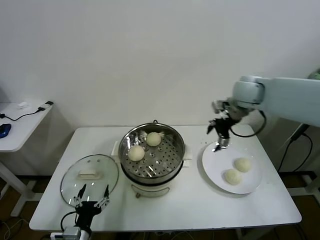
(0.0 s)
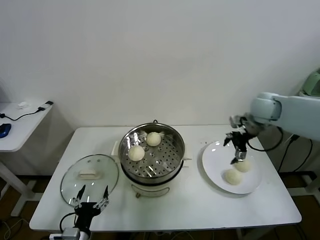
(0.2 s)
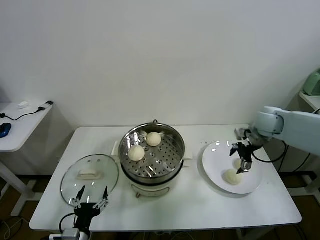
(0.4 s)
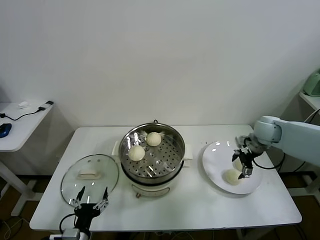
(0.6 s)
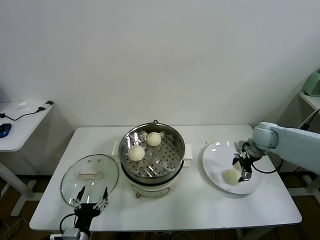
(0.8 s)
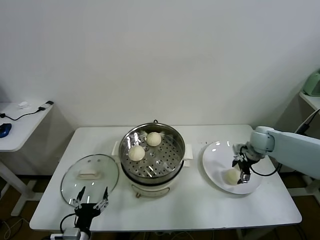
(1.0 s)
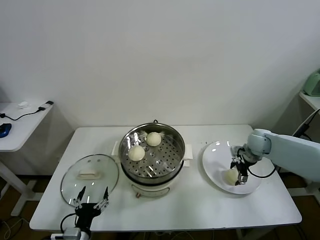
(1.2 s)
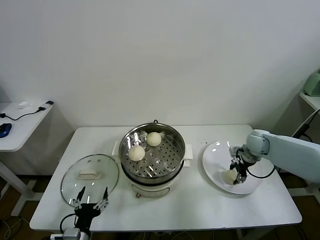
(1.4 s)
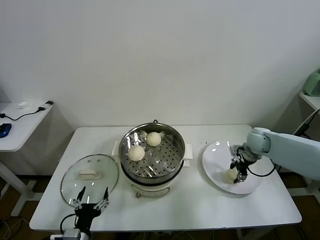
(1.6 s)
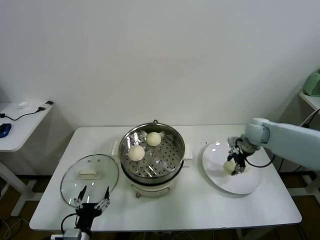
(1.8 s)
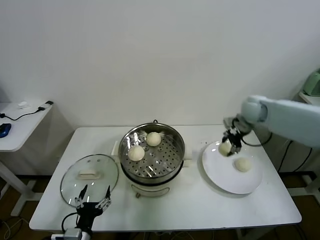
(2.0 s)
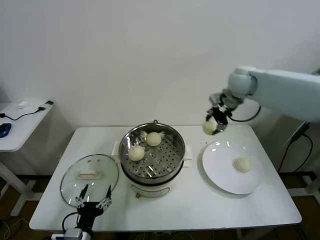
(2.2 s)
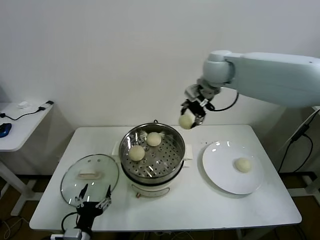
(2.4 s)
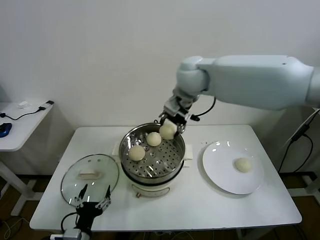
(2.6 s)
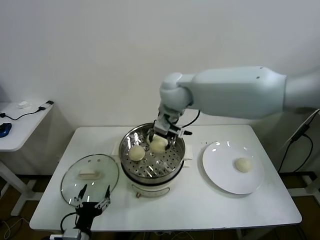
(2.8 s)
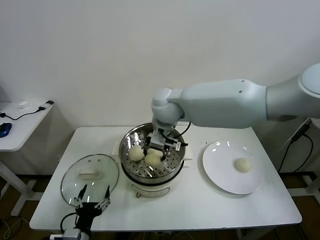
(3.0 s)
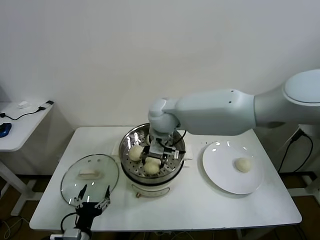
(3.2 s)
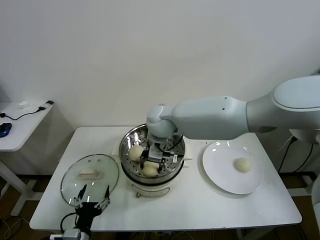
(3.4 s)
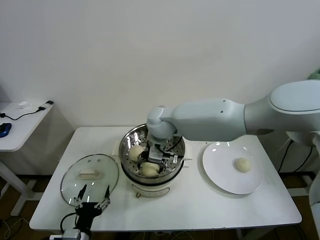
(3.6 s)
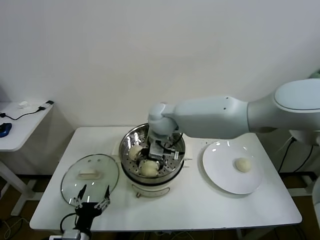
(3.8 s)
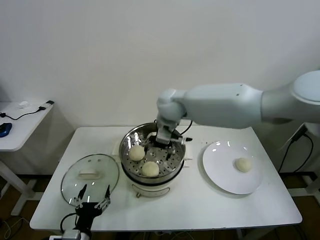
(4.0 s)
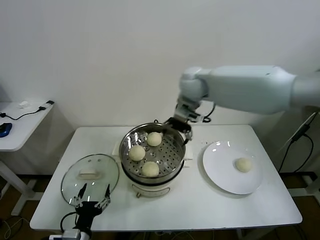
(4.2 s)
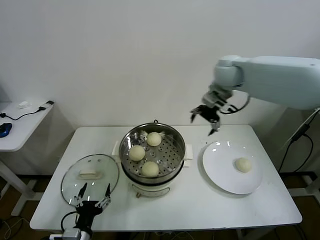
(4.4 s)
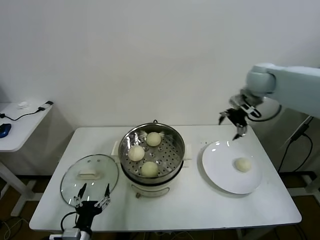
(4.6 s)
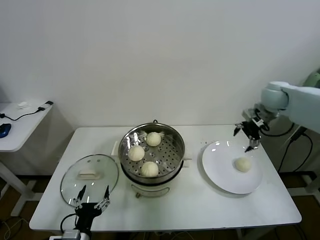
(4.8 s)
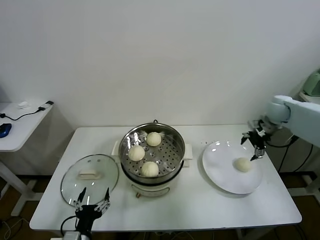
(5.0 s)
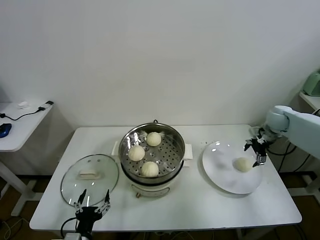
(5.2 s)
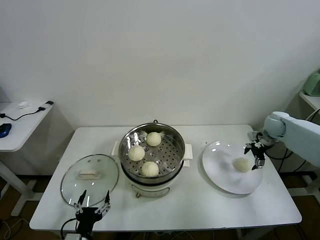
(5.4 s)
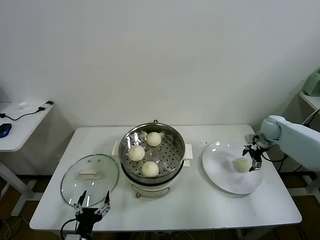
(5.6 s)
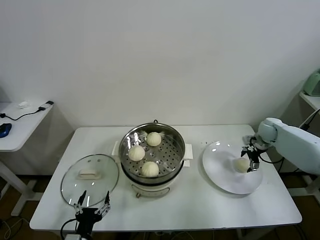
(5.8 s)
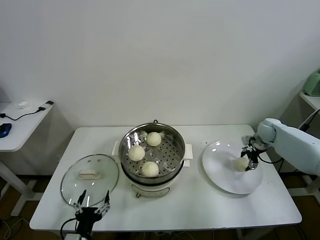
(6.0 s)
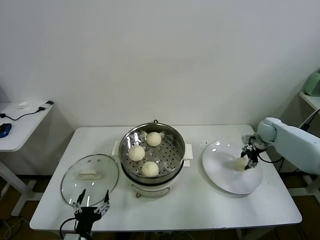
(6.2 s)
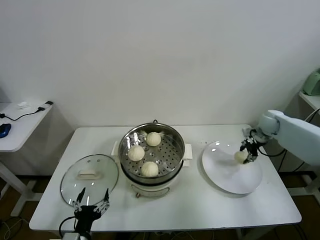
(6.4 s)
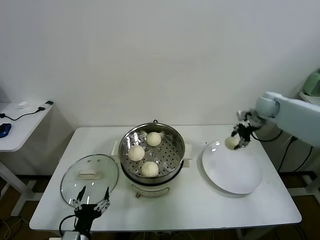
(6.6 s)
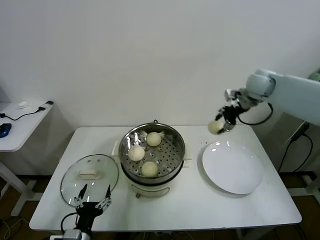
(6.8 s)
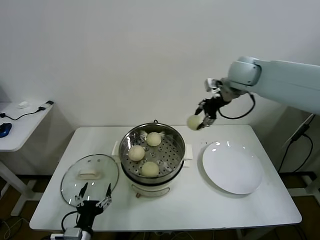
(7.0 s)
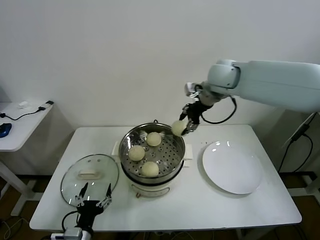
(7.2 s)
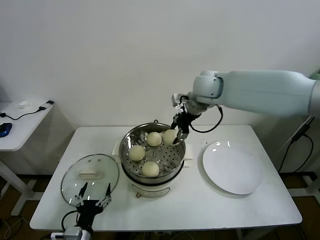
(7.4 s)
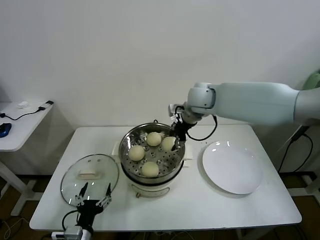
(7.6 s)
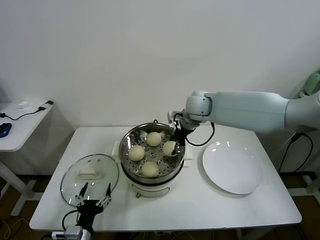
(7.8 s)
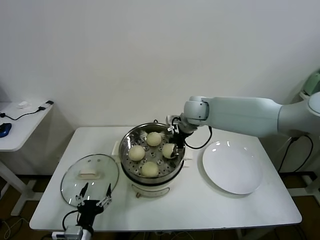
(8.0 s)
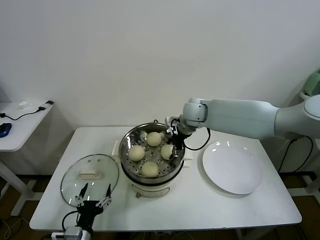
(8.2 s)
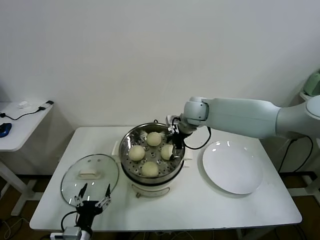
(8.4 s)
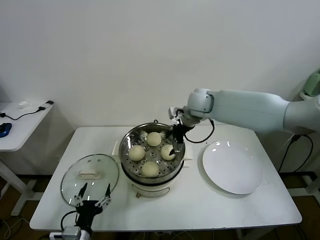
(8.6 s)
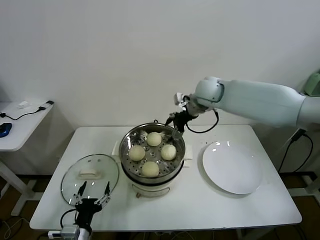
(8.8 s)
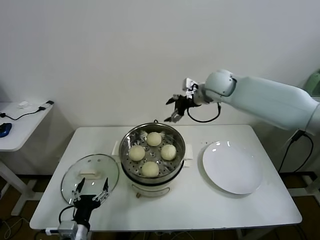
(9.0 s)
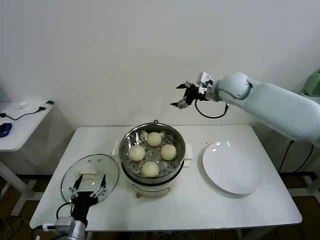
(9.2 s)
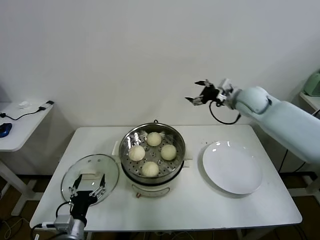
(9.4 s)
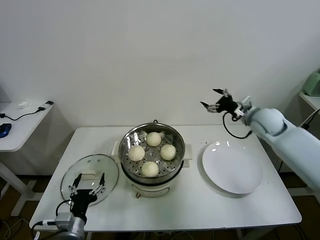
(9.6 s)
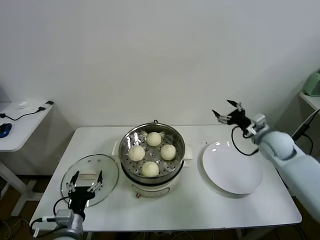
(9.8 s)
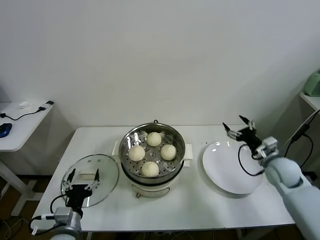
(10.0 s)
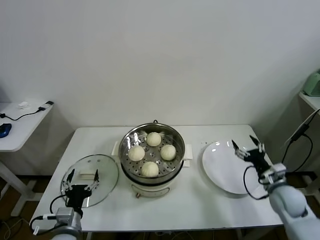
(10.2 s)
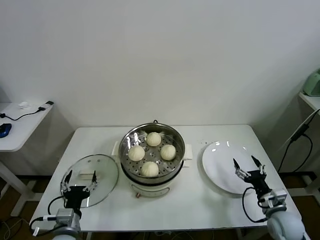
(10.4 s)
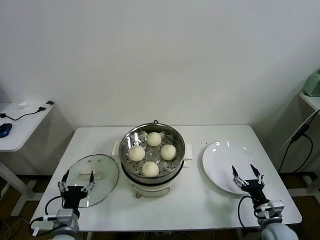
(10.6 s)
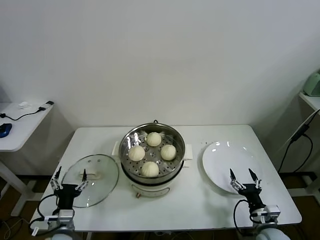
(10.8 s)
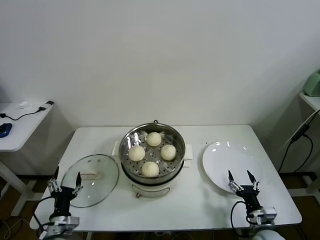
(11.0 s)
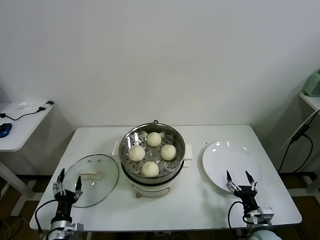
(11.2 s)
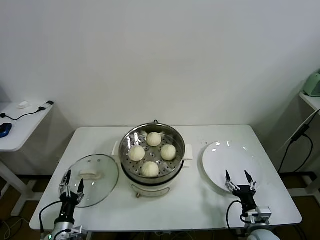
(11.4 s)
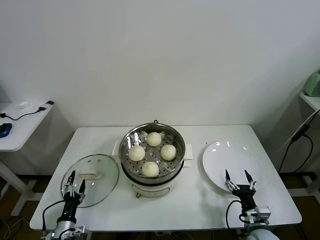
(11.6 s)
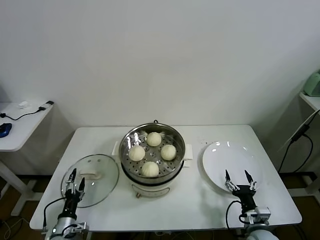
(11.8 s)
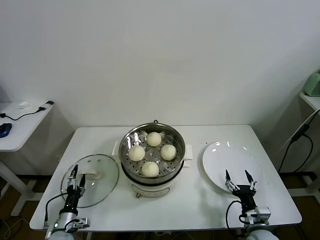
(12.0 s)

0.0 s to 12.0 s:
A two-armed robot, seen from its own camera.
Task of the whole recording: take steamed baozi put them in steamer.
Step, 0.0 to 1.4 s: Grasp the baozi in the plate with right gripper.
Step, 1.6 to 3.8 s: Place the baozi on the steamer with right gripper.
Step, 4.0 to 6.2 s: Grasp the baozi in the plate with right gripper.
Step, 6.4 to 8.4 s: Place the baozi on the steamer with right gripper.
0.0 to 1.6 s: The right gripper is displaced downward and to the right by roughly 20 cm, and closes up.
1.6 to 3.0 s: The right gripper moves to the left and upward, some 40 cm.
3.0 to 4.4 s: The right gripper goes about 20 cm to the right, and opens.
4.4 to 6.0 s: The right gripper shifts about 35 cm downward and to the right, and closes its fingers.
6.0 to 7.6 s: The right gripper shifts some 35 cm to the left and upward, and closes its fingers.
7.6 to 9.0 s: The right gripper travels to the right by approximately 5 cm, reaches approximately 5 cm downward, then returns, and opens up.
9.0 to 10.4 s: The right gripper moves downward, backward and to the right, approximately 50 cm.
10.4 to 12.0 s: The right gripper is displaced to the left and backward by about 10 cm. Meanwhile the left gripper shifts about 15 cm downward and to the left.

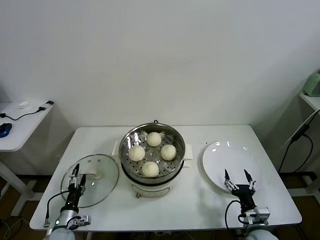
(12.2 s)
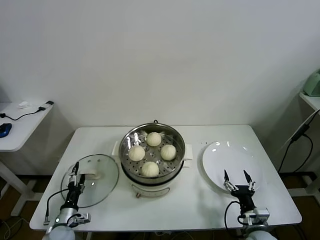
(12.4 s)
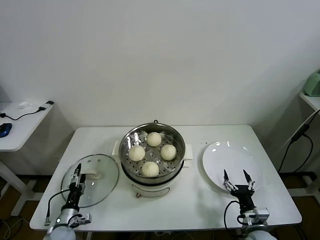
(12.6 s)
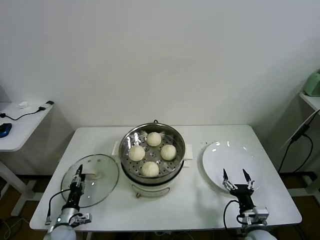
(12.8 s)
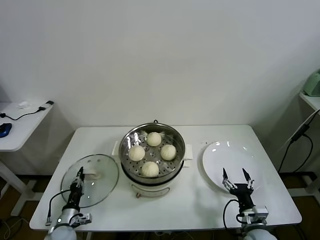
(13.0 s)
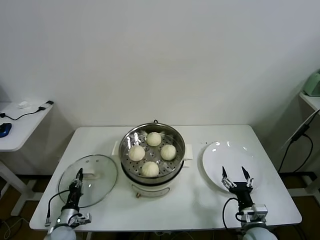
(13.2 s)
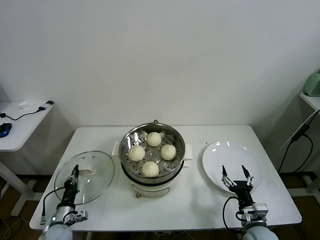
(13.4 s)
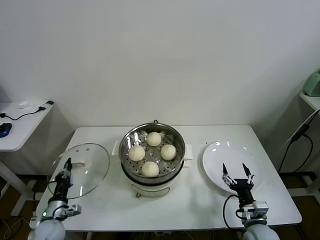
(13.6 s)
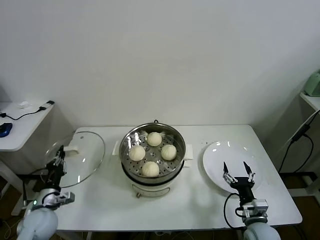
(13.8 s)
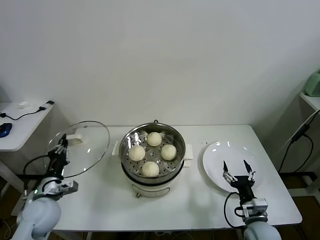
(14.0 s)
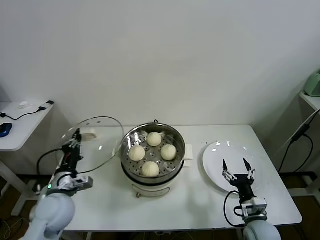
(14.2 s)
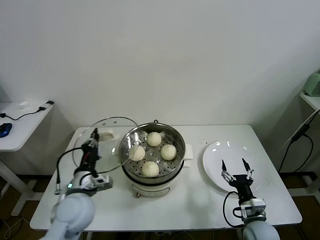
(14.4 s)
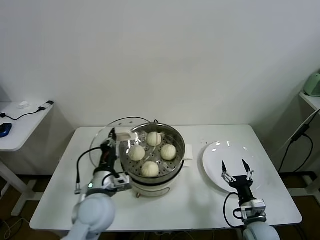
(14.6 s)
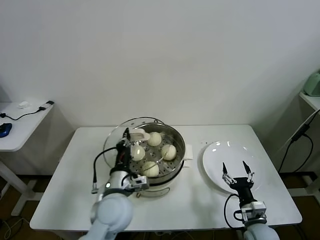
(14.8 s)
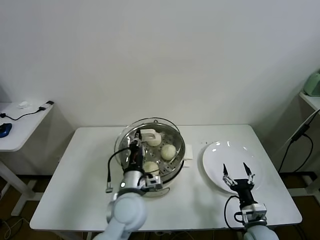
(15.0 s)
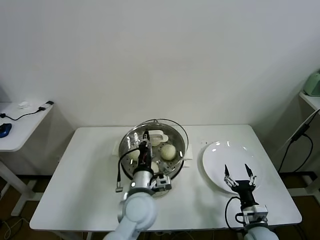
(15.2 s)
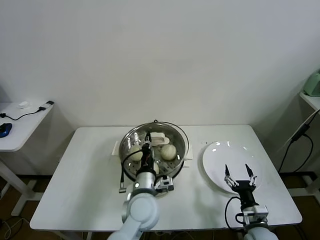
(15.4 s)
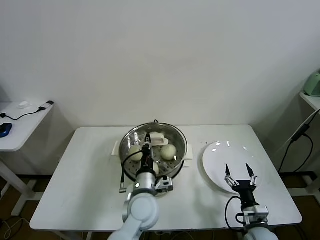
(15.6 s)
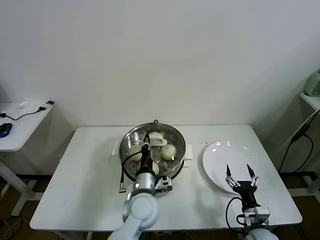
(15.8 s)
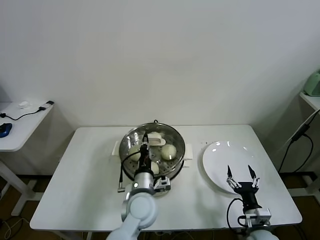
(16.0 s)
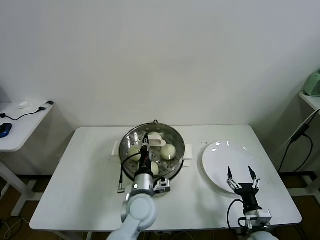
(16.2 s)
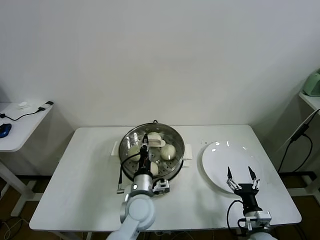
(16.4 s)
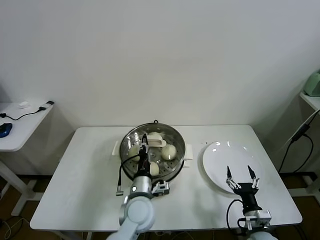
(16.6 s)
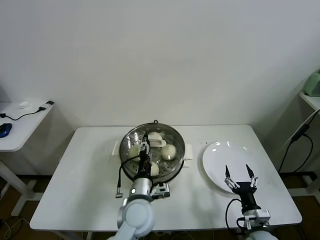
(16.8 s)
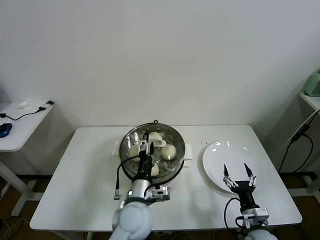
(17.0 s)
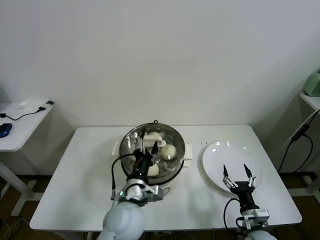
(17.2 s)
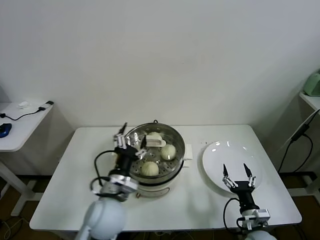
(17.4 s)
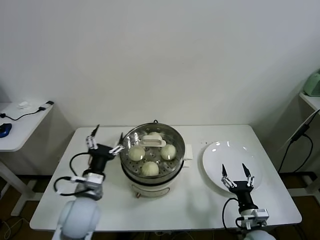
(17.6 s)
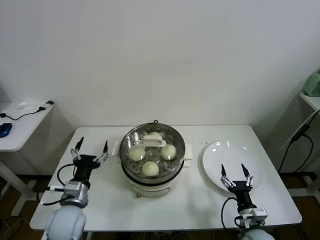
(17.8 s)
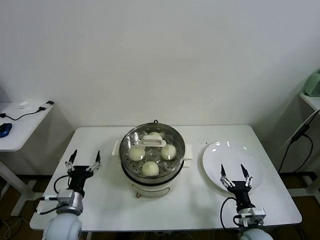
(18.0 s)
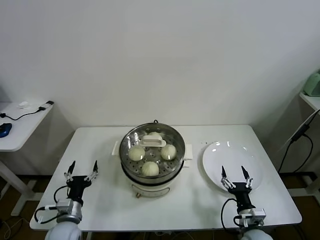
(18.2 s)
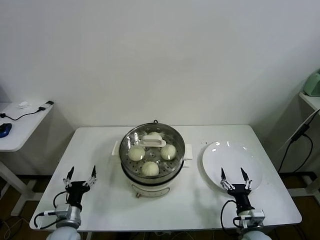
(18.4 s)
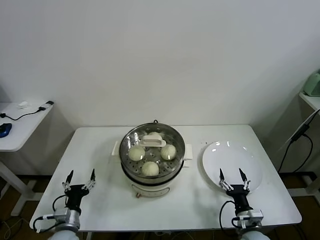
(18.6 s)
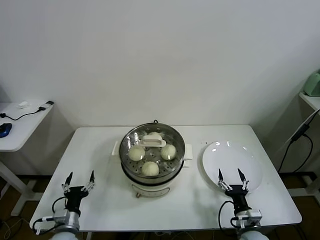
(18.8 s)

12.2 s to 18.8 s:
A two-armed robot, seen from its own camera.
Task of the whole recording: take steamed baozi put them in steamer.
Step, 13.4 to 16.4 s: Place the pot lid on the steamer with left gripper.
12.2 to 13.8 s: The left gripper shifts roughly 10 cm upward, and closes its fingers.
13.8 to 15.4 s: The left gripper moves to the right, some 35 cm.
15.4 to 17.2 s: The left gripper opens its fingers.
17.2 to 18.8 s: The left gripper travels to the left and downward by approximately 30 cm.

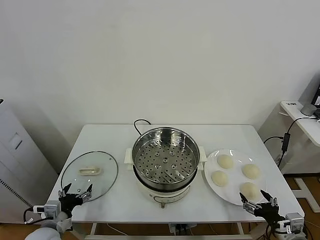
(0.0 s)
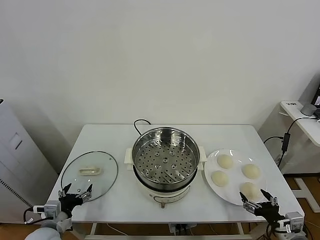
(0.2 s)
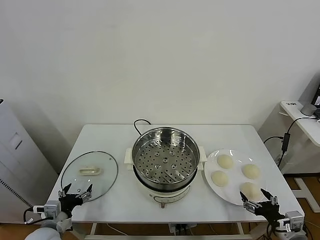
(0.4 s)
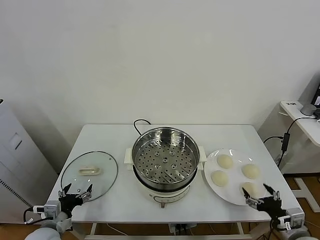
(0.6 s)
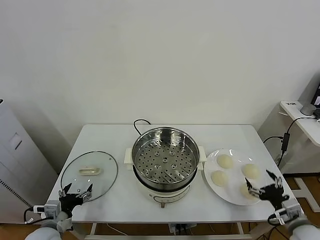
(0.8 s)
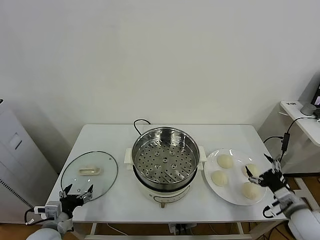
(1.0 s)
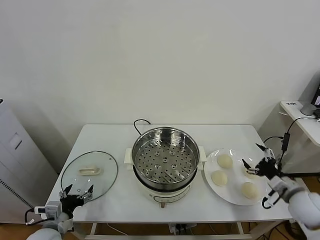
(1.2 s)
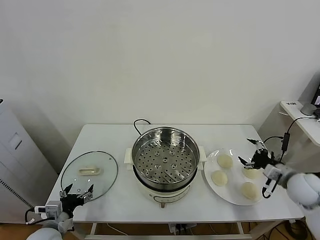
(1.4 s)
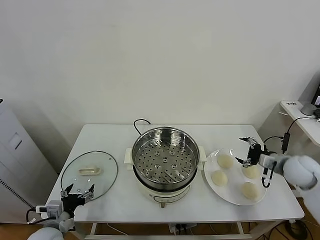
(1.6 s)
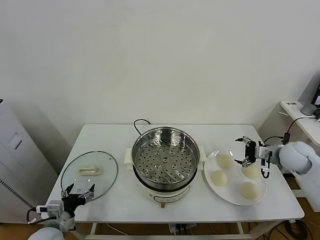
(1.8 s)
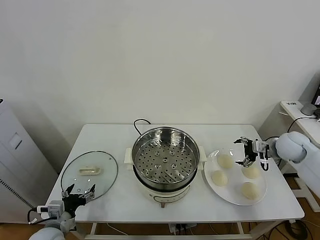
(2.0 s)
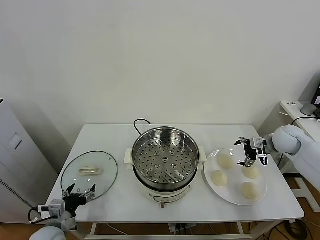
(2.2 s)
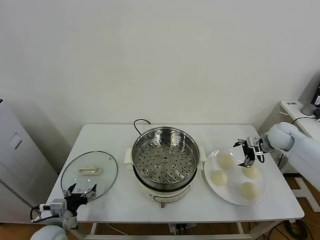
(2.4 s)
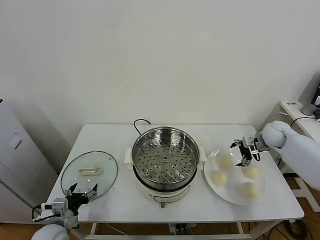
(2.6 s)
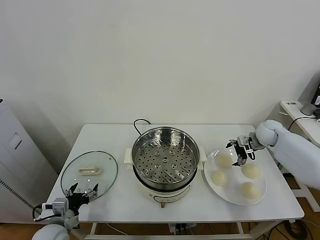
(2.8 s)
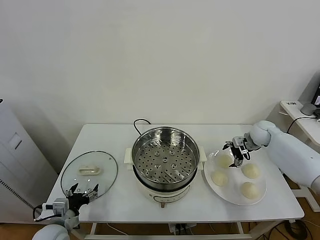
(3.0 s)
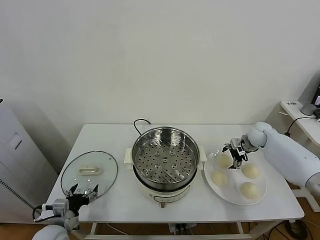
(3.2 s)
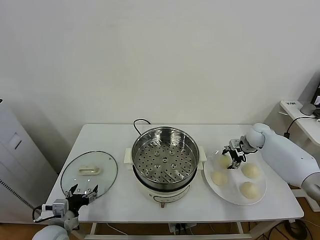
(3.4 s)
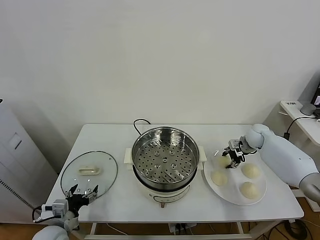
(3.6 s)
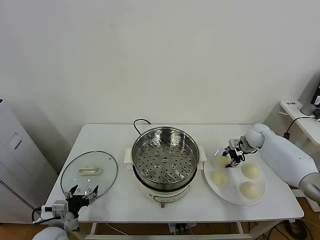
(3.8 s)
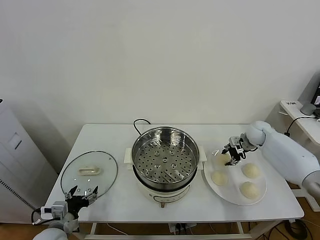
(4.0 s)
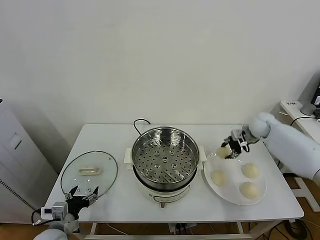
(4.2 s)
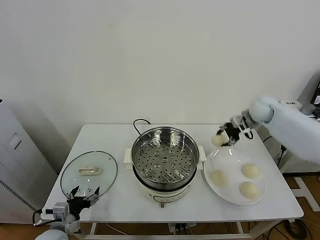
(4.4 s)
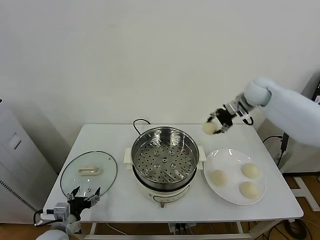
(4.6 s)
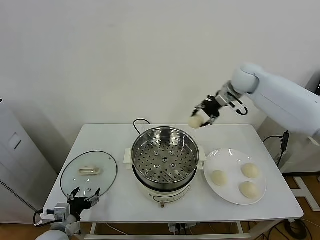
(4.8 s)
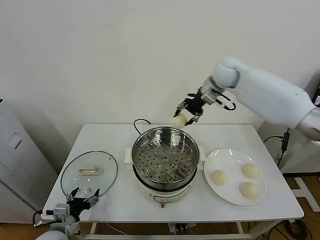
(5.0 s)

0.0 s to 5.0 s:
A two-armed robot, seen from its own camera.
Task of the whole recording: take steamed baozi put them in steamer.
Step, 0.0 to 3.6 s: Grasp the baozi in the plate with right gripper.
1.6 to 3.4 s: The right gripper heads forward, covering about 15 cm, and closes its fingers.
3.4 to 5.0 s: The right gripper travels upward and to the left by roughly 35 cm.
